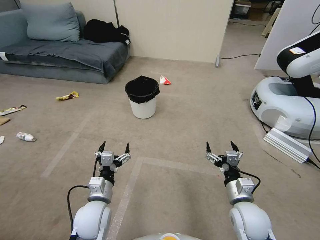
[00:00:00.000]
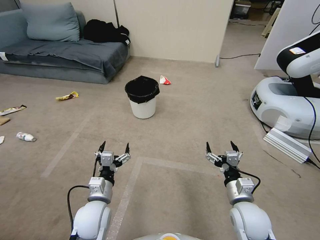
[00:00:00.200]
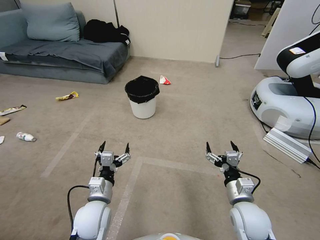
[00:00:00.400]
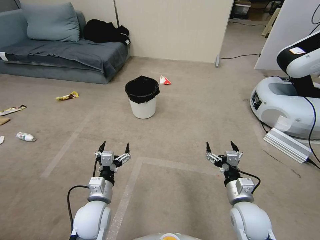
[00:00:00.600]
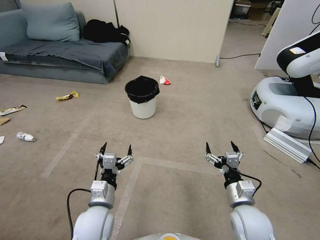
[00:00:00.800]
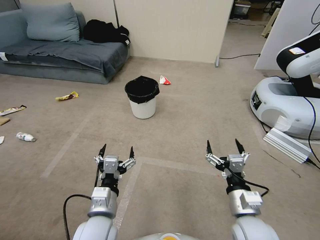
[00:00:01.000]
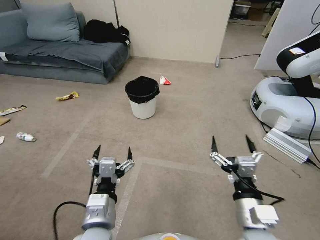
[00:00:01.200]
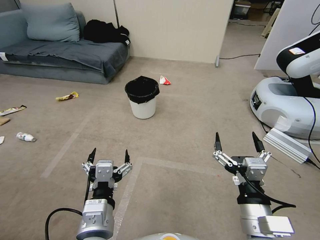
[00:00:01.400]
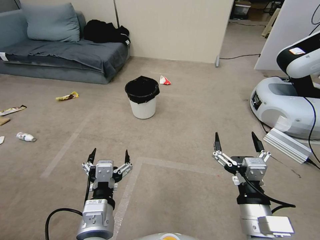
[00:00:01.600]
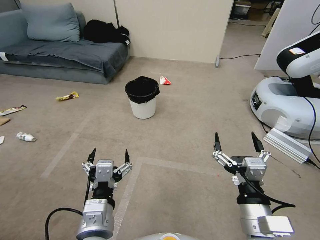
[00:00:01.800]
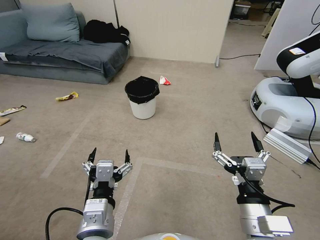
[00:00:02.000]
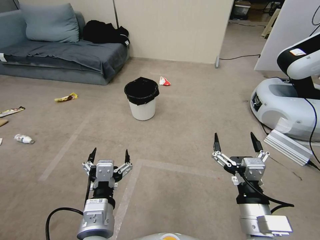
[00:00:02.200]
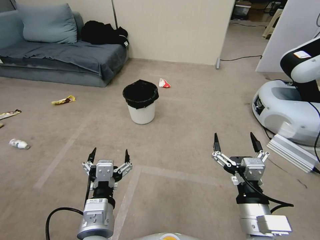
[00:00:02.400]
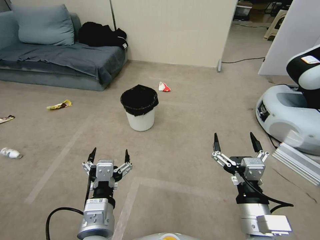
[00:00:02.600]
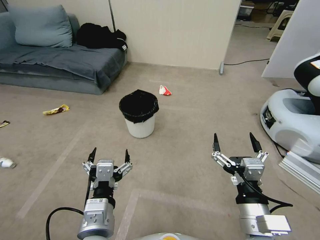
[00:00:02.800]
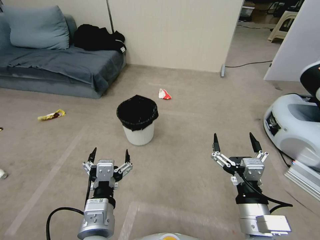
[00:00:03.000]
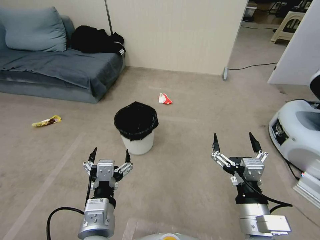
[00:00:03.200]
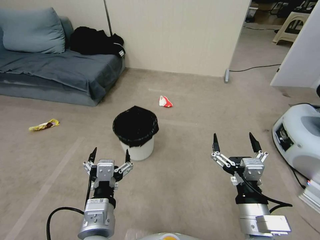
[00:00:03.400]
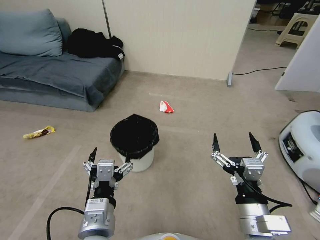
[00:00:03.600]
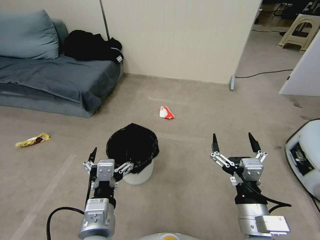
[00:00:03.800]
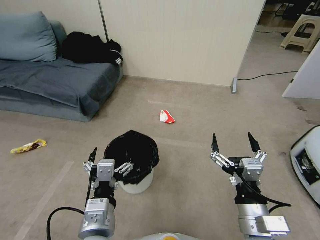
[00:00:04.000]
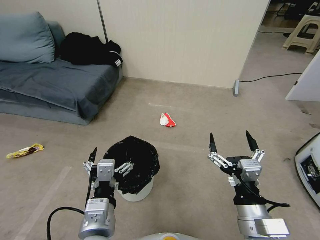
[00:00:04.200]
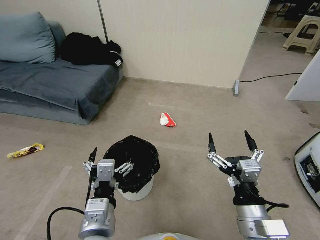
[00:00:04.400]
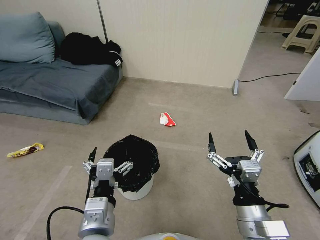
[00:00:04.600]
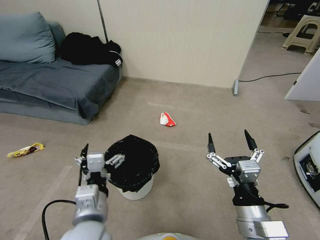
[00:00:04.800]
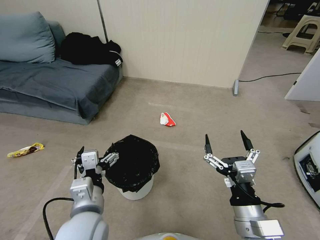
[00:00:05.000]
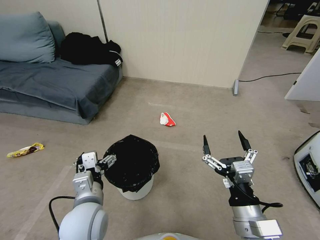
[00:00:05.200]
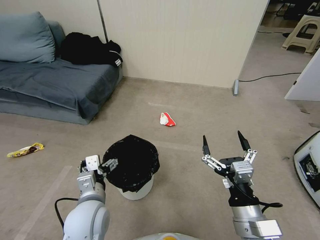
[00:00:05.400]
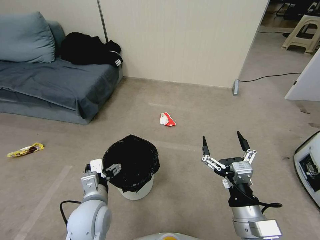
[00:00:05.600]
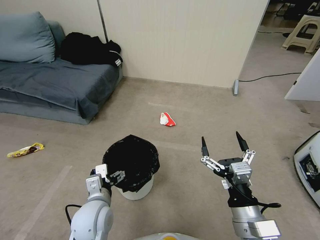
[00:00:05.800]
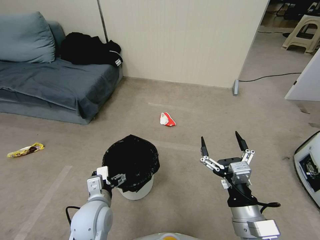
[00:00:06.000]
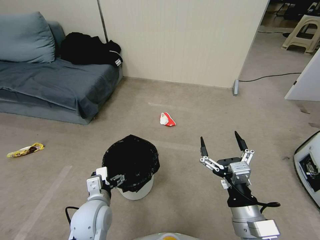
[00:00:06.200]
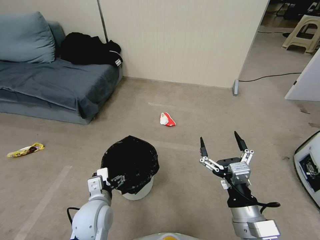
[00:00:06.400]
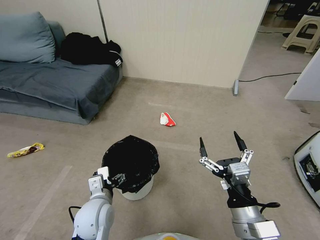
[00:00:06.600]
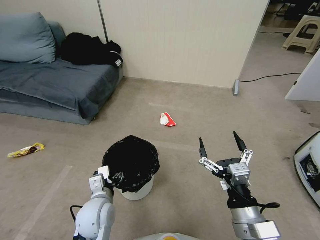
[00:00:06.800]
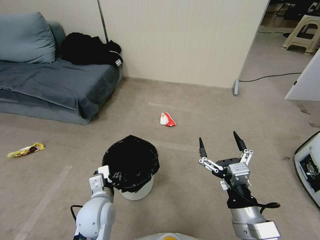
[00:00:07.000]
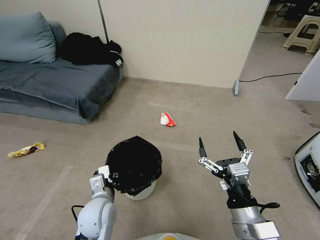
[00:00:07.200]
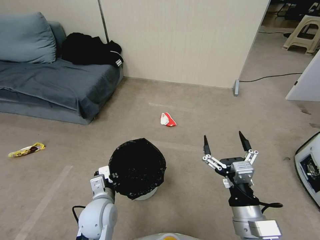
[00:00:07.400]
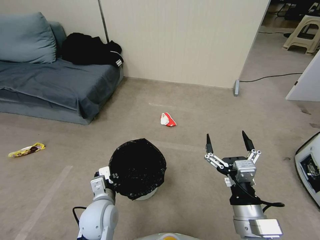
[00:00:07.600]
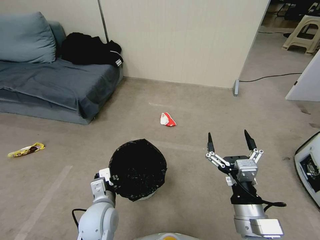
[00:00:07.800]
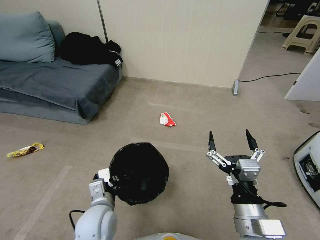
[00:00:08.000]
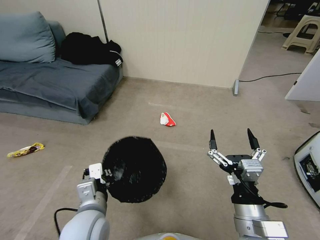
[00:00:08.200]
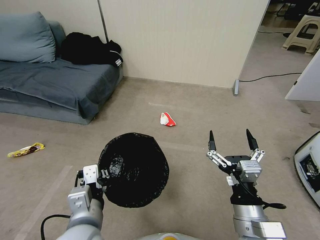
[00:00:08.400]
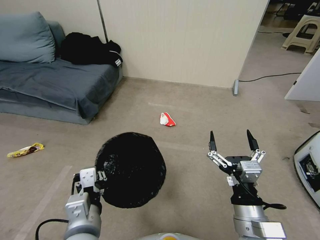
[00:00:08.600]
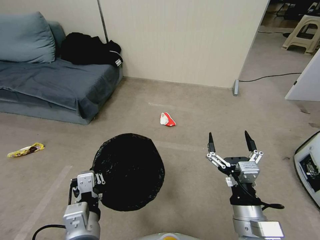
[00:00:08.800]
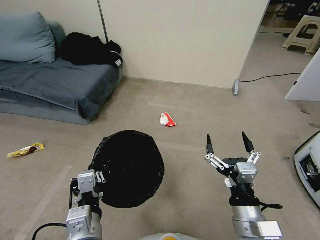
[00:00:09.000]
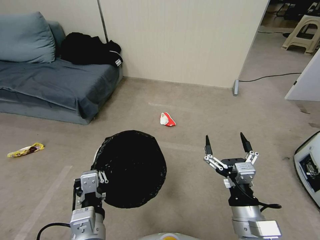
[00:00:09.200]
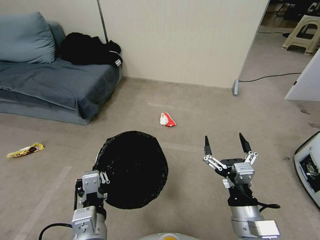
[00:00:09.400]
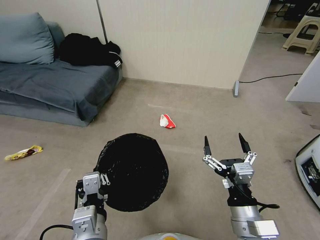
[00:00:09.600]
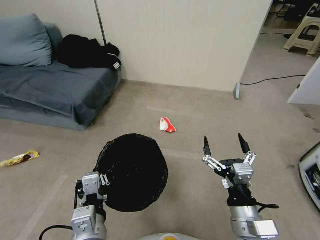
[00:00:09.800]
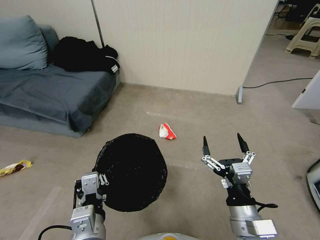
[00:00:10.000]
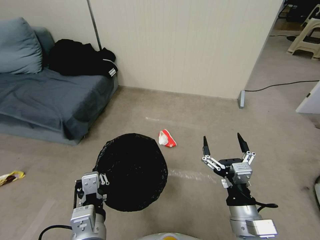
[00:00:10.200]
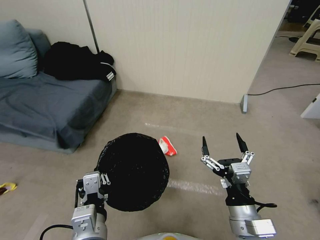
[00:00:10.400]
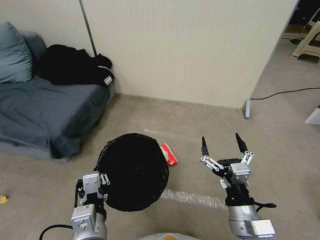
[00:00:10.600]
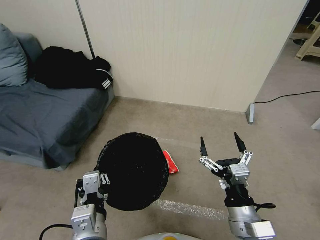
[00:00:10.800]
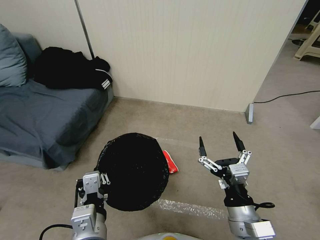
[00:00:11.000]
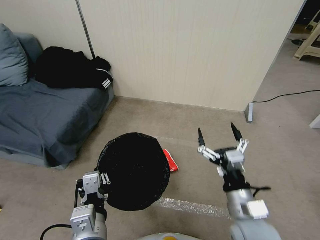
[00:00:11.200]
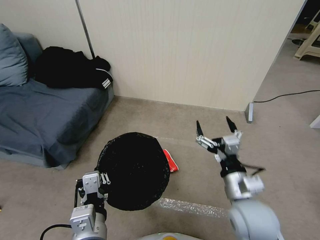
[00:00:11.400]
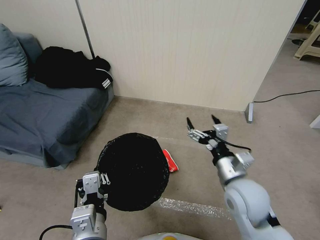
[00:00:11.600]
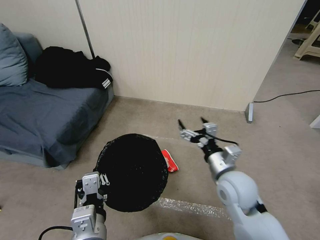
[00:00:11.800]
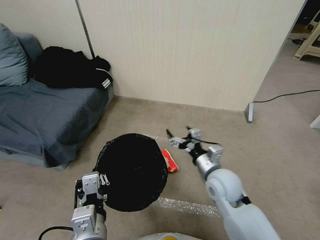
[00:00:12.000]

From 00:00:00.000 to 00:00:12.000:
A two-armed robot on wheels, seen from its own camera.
Task of the whole recording: Pick up the trash bin, then pick up the garbage from the floor and place it into the trash bin.
From 00:00:04.400 to 00:00:06.000: The left gripper is displaced downward, forward and to the left by about 15 cm.
From 00:00:06.000 to 00:00:07.600: The left gripper closes up.
From 00:00:07.600 to 00:00:09.000: The left gripper goes roughly 15 cm backward and upward.
From 00:00:10.400 to 00:00:12.000: The right gripper goes about 15 cm forward.

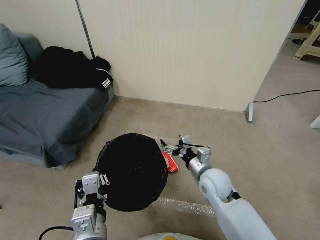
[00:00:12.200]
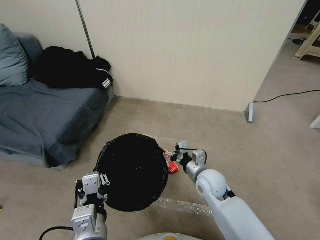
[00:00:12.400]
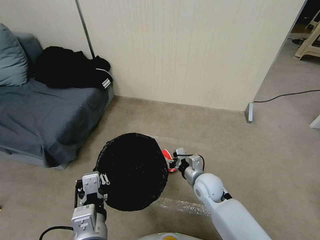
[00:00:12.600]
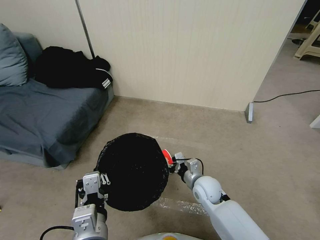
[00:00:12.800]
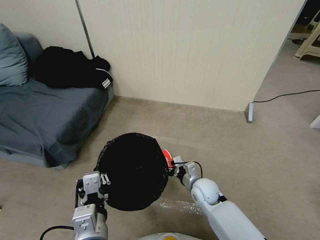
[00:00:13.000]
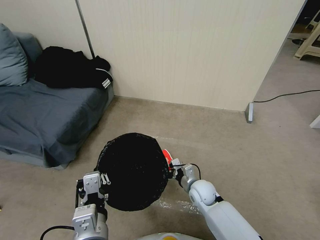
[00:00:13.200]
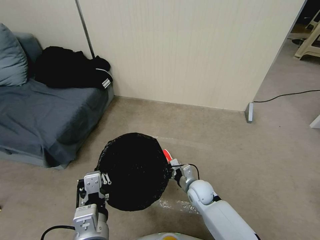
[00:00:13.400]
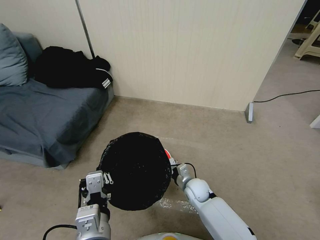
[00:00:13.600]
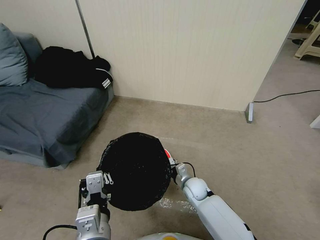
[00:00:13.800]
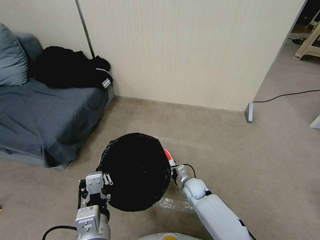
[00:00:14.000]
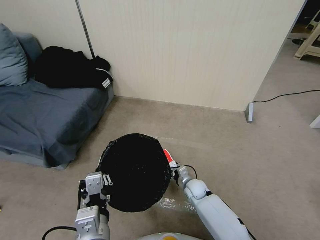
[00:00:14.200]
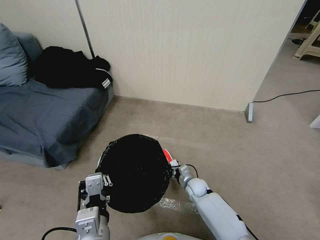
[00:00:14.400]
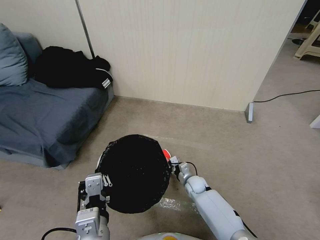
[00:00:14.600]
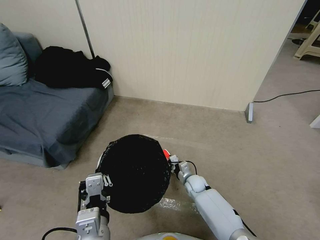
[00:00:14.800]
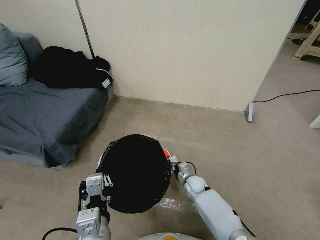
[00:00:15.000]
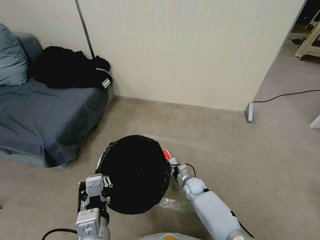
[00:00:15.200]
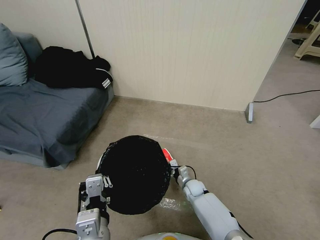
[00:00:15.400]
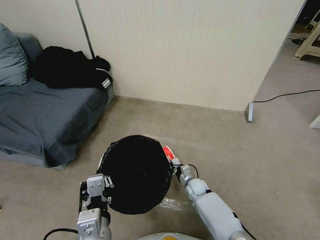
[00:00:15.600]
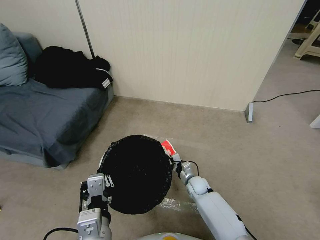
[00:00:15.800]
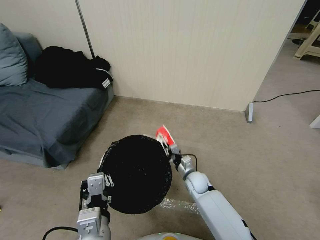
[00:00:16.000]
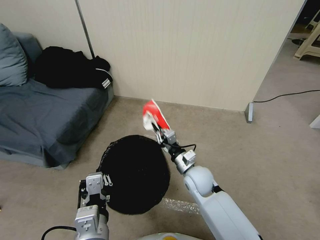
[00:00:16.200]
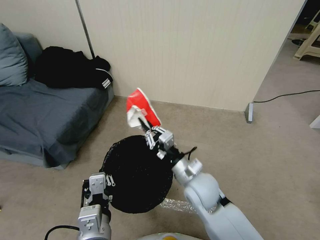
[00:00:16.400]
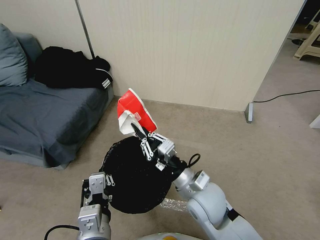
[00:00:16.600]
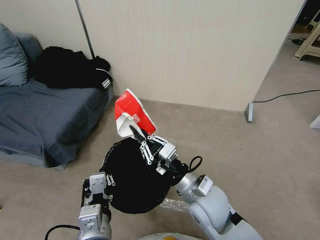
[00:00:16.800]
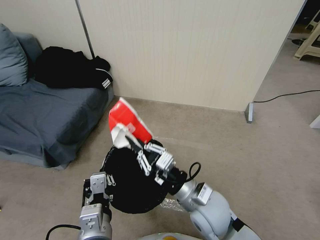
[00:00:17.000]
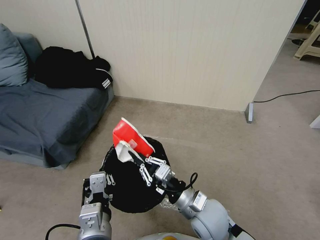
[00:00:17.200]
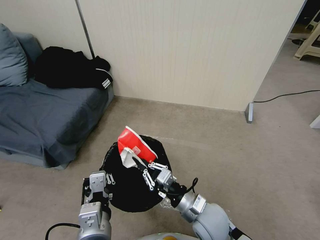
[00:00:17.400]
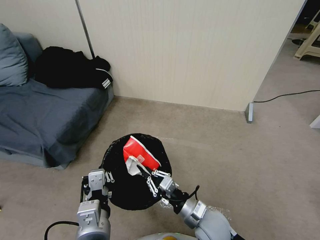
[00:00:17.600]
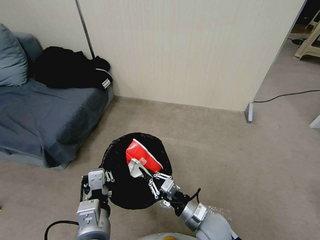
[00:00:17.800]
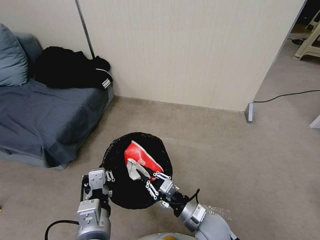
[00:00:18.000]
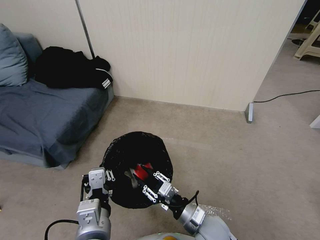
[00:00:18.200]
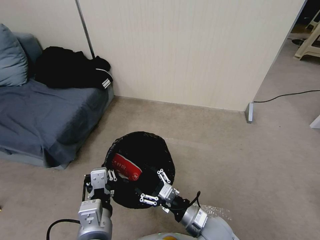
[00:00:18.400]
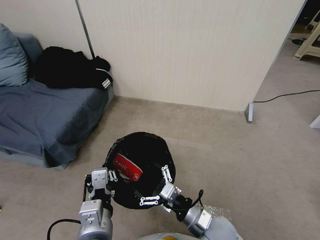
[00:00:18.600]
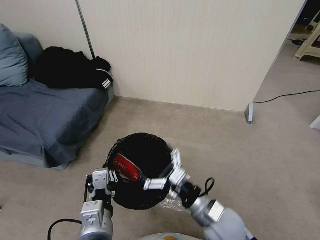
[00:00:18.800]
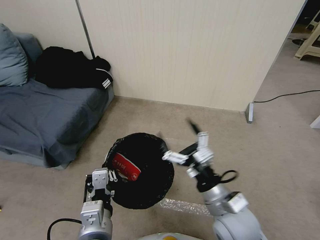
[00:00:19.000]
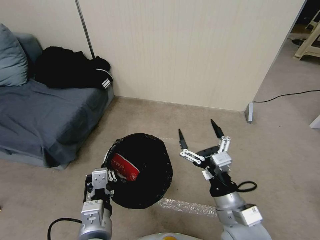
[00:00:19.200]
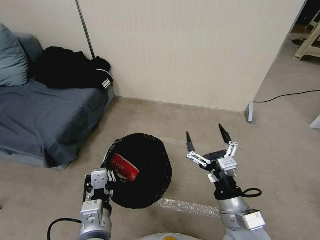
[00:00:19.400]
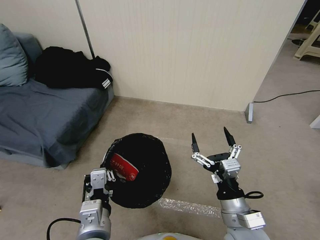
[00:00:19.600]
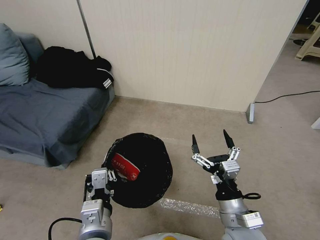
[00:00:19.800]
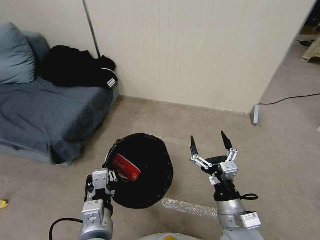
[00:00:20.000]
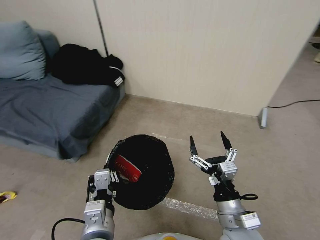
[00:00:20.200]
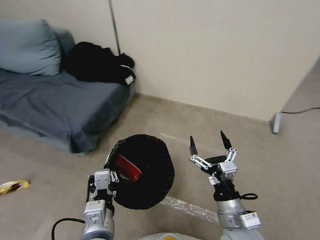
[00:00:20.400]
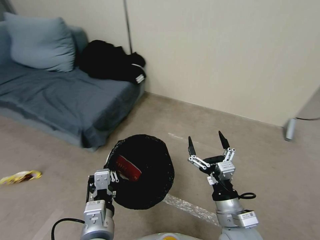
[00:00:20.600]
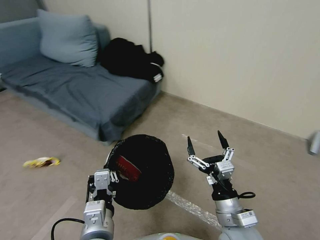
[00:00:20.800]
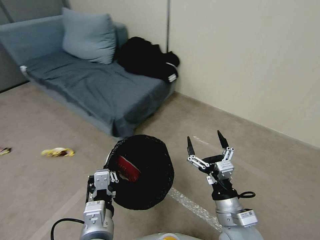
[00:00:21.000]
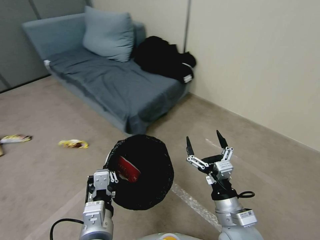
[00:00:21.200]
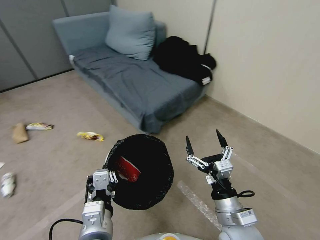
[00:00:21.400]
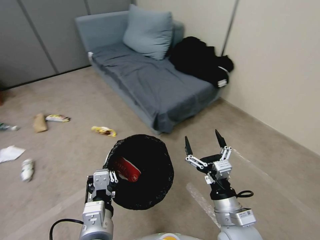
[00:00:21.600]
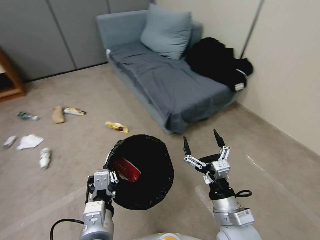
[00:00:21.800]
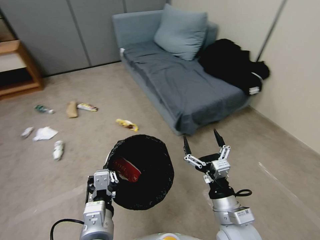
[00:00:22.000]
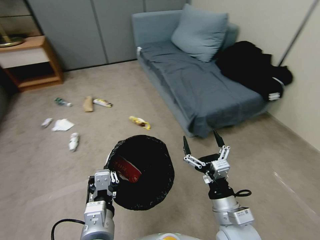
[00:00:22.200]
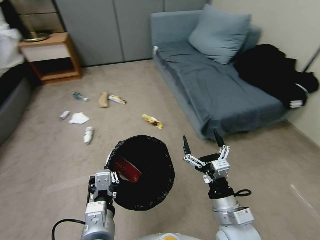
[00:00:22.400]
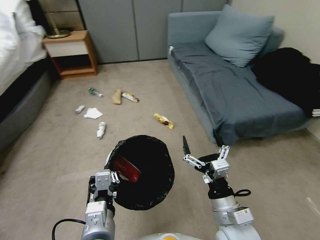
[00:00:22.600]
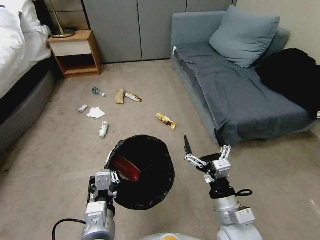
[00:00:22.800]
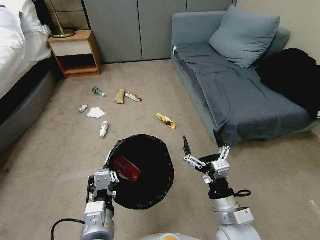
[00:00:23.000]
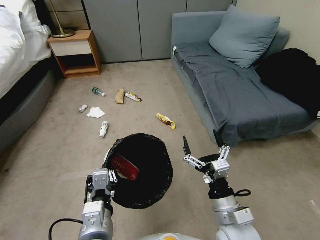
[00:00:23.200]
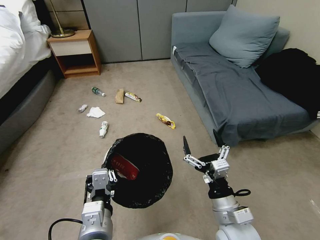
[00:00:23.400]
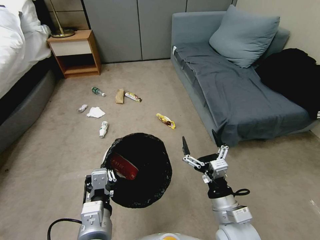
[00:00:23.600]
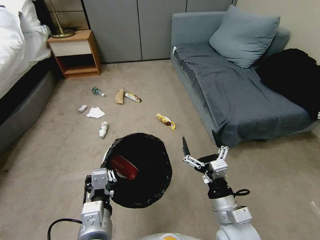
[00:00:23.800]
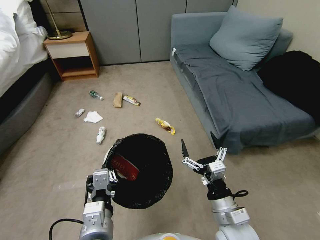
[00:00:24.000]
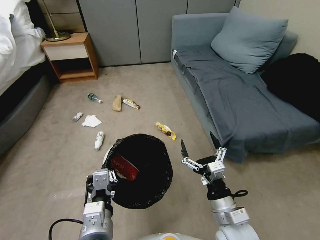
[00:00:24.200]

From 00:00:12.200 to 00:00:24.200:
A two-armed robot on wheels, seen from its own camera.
Task of the whole recording: Pick up the trash bin, then pick up the garbage from the floor and place it into the trash bin.
From 00:00:12.200 to 00:00:13.800: The right gripper travels downward by roughly 15 cm.
From 00:00:13.800 to 00:00:15.200: The right gripper shifts roughly 5 cm downward, and closes.
From 00:00:15.200 to 00:00:16.600: The right gripper travels upward and backward by some 30 cm.
From 00:00:16.600 to 00:00:18.200: The right gripper shifts roughly 15 cm downward and backward, and opens its fingers.
From 00:00:18.200 to 00:00:19.800: The right gripper shifts about 10 cm upward and to the right, and opens.
From 00:00:22.600 to 00:00:24.200: The grippers stay close to where they were, moving slightly.
